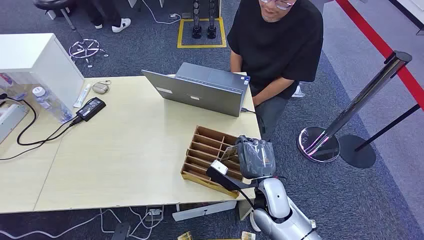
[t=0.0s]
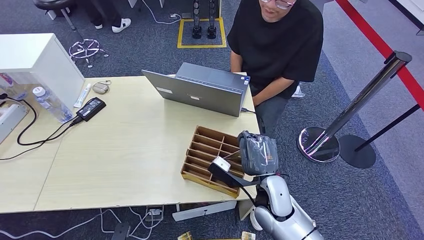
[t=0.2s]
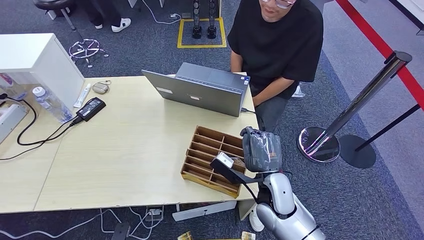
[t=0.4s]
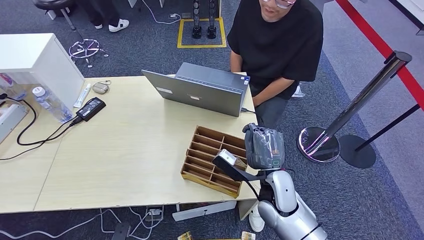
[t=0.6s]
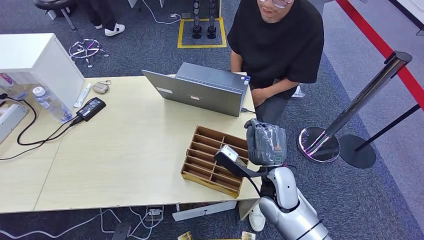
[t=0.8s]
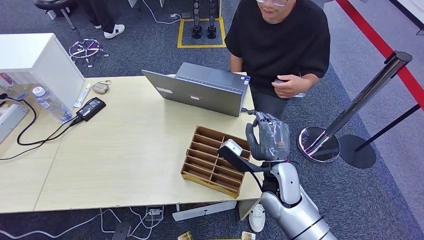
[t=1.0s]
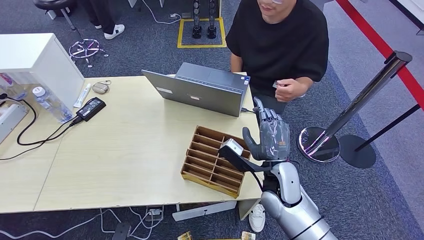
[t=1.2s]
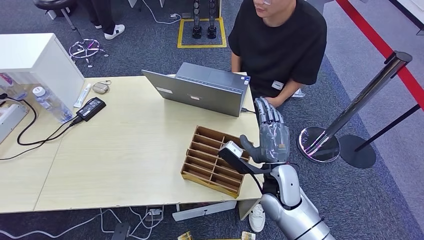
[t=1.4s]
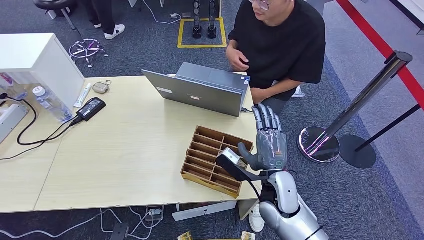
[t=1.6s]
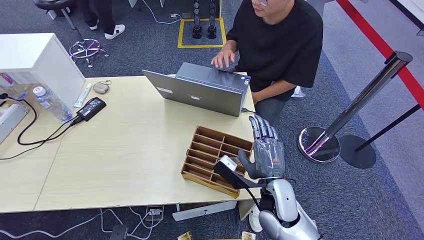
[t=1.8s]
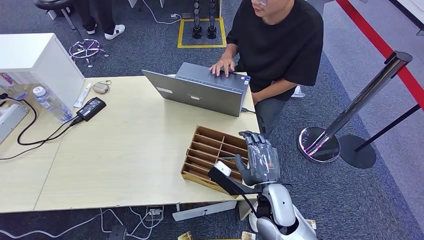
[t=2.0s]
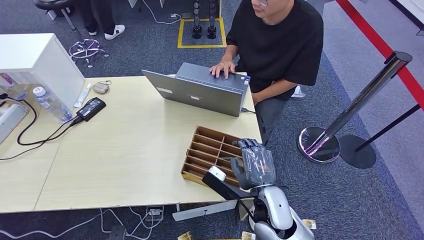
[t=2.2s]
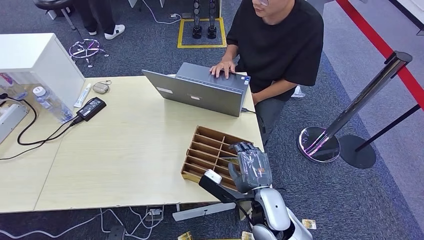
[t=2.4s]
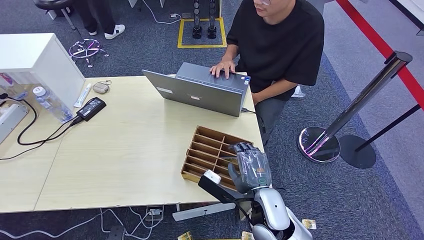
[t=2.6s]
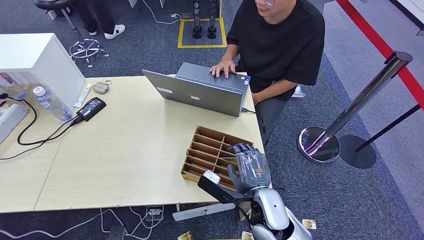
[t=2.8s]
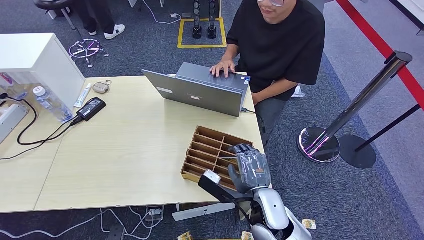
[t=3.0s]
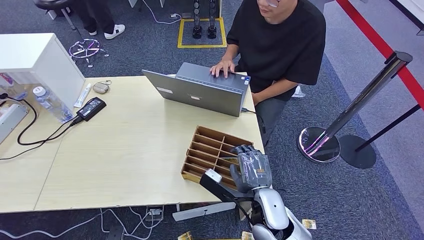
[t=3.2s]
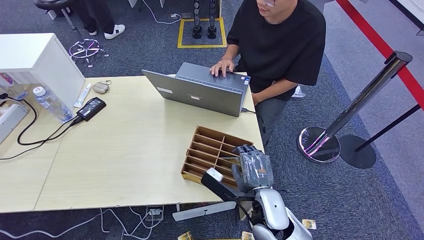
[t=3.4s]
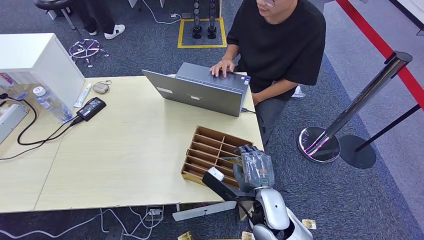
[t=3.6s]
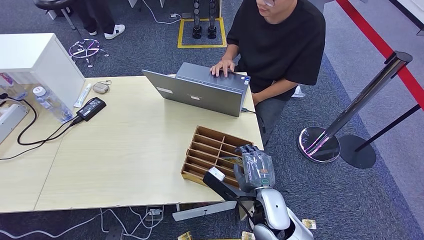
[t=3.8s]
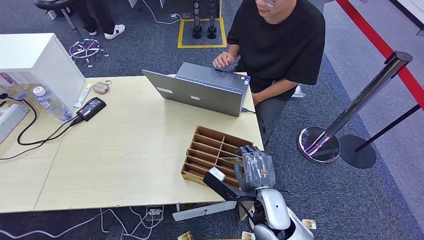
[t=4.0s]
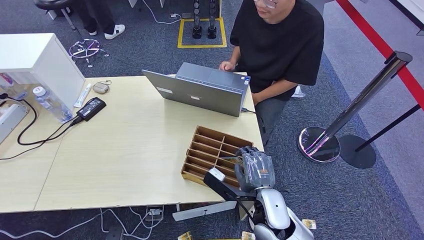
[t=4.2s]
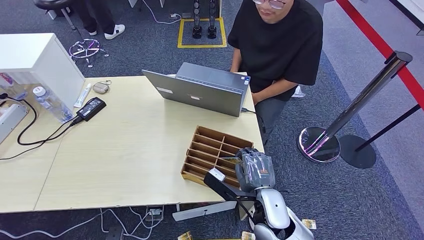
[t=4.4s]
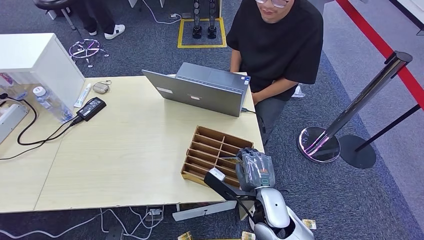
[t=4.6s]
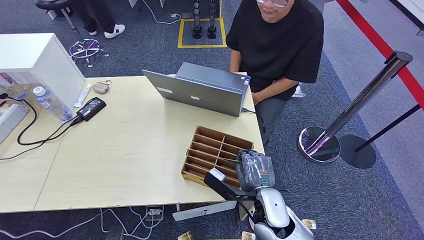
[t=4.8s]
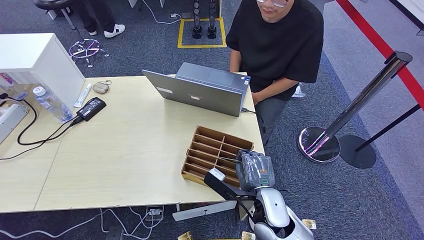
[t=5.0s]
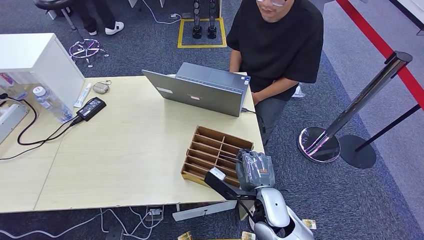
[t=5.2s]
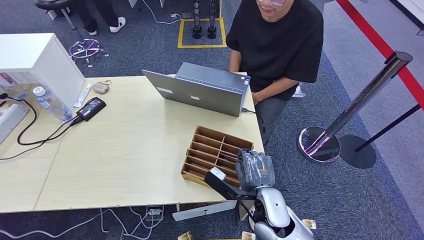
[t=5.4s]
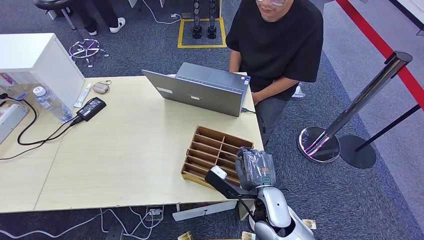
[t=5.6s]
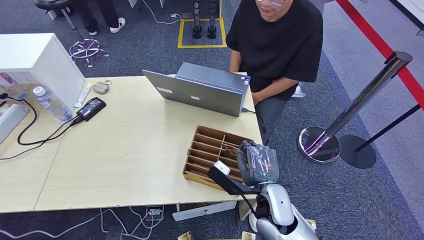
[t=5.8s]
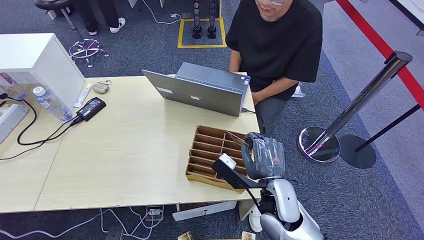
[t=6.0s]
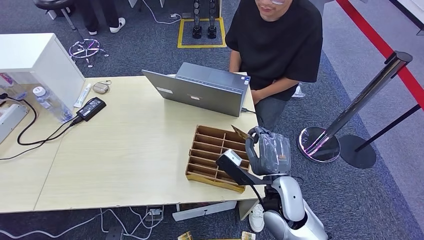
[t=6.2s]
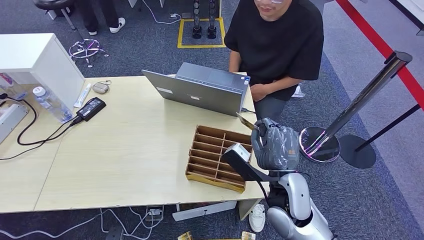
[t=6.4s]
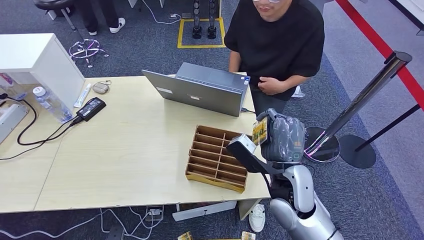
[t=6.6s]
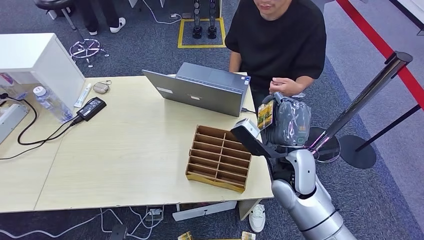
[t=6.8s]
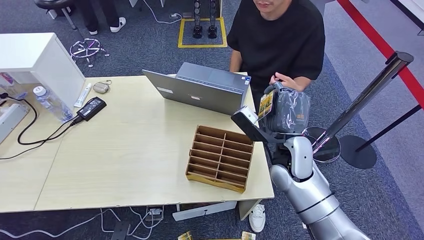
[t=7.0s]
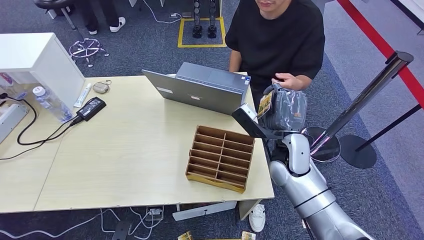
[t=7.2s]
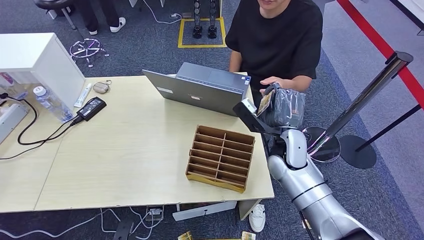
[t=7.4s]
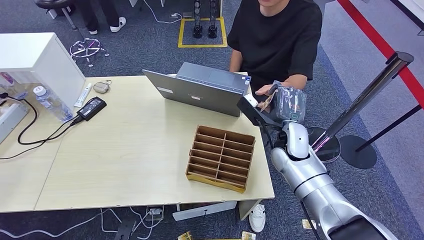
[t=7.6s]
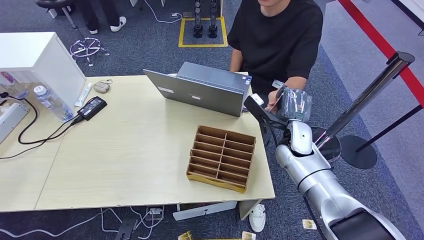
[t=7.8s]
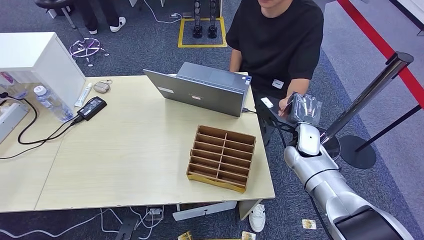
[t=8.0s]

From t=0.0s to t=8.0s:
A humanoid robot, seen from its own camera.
Step, from t=0.0s to t=5.8s: Pick up the key card from the card box.
Step, from t=6.2s to t=8.0s: Hand the key card to the target.
From t=1.6s to t=3.2s: The right hand shifts by roughly 5 cm.
From t=3.2s to t=4.8s: The hands make only small movements.
From t=4.8s to t=6.4s: The right hand shifts roughly 5 cm upward.
From t=6.4s to t=8.0s: The right hand goes about 20 cm forward and to the right.

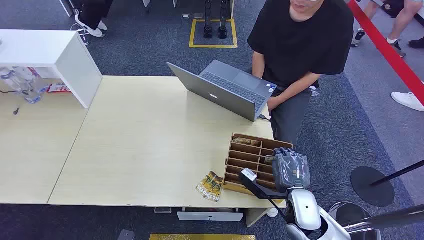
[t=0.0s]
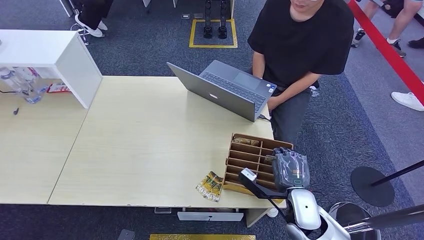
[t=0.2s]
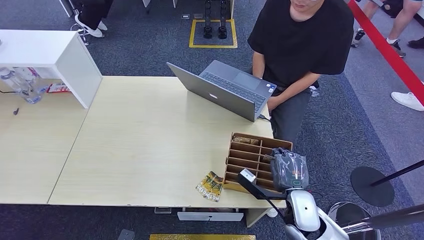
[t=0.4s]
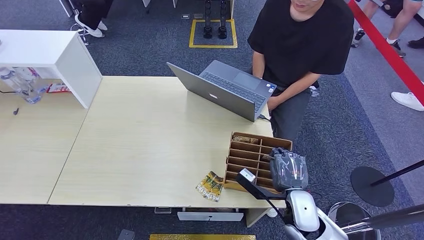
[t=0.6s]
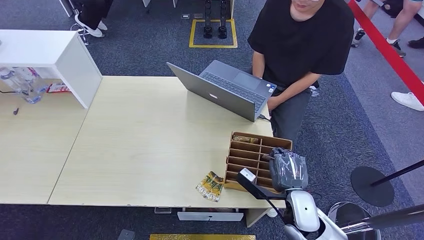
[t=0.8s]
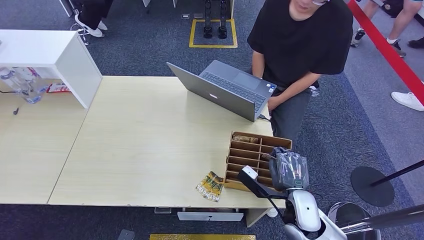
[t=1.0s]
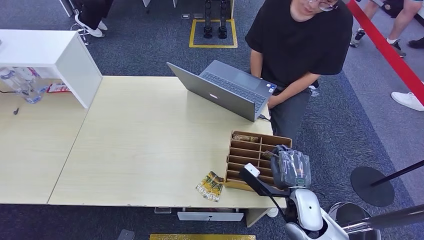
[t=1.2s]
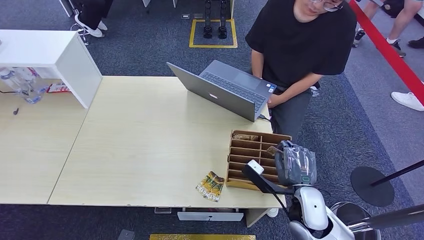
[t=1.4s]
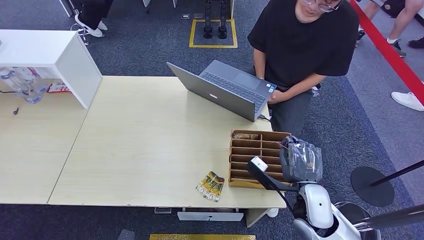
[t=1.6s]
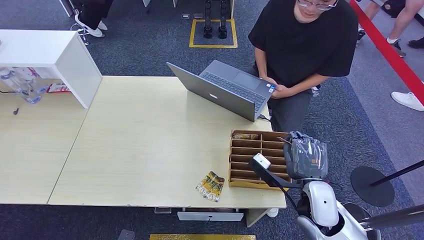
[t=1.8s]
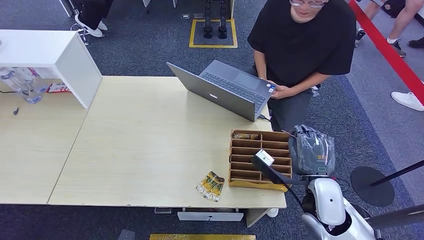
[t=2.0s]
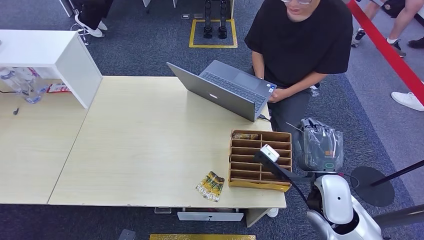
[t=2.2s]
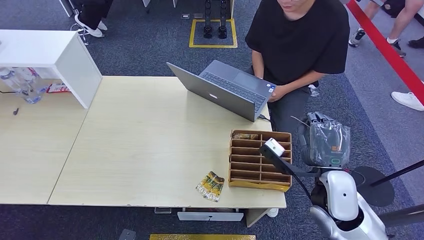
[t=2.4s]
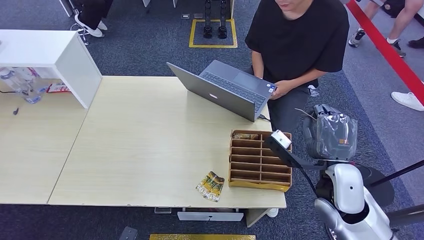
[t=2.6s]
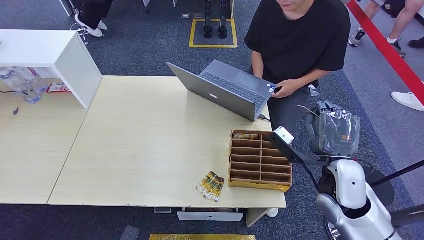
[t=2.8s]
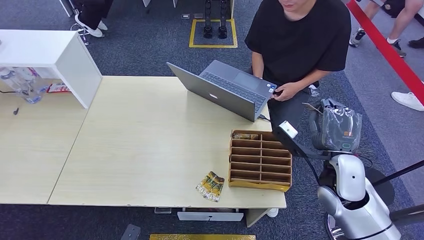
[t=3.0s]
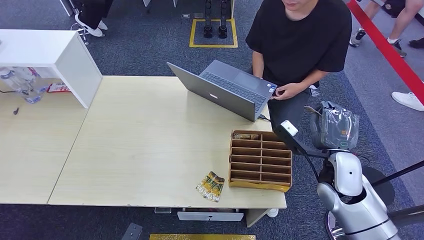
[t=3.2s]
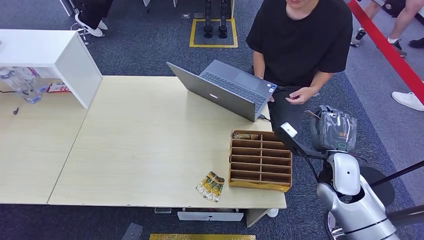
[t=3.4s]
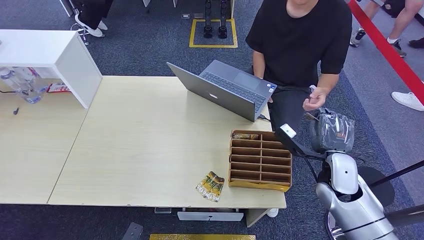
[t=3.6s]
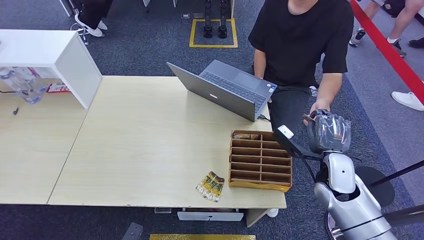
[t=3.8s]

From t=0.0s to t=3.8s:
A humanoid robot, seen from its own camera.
Step, from t=0.0s to t=2.2s: Pick up the key card from the card box.
Step, from t=2.4s to t=3.8s: Hand the key card to the target.
From t=1.2s to t=2.6s: The right hand shifts some 10 cm upward.
From t=2.6s to t=3.8s: The right hand is displaced downward by some 5 cm.
